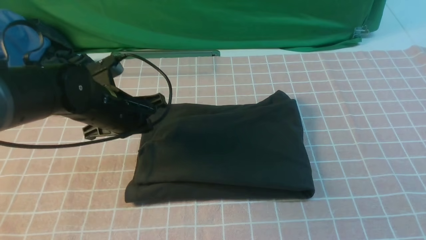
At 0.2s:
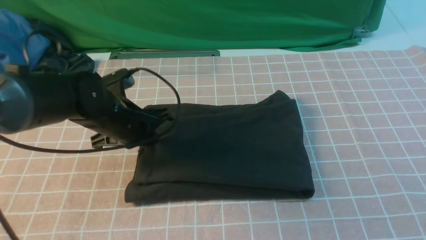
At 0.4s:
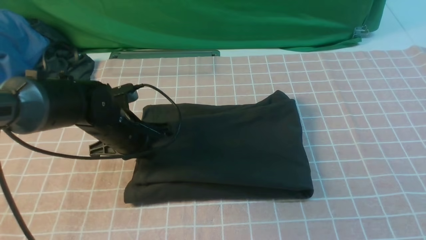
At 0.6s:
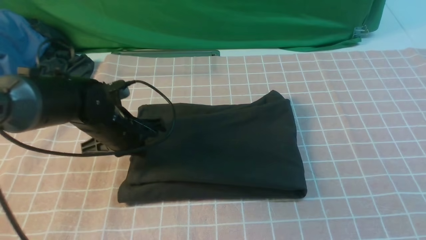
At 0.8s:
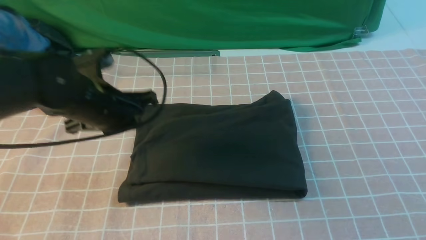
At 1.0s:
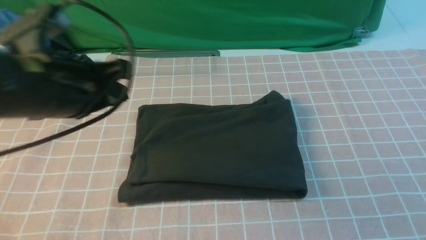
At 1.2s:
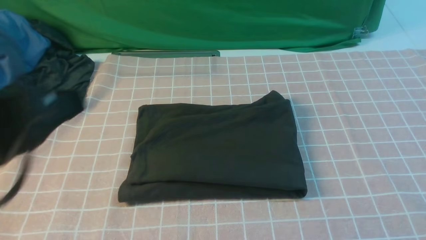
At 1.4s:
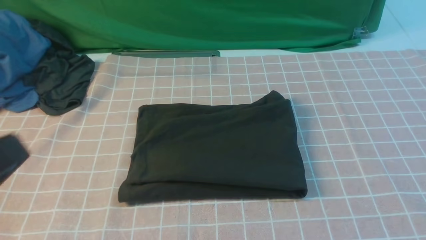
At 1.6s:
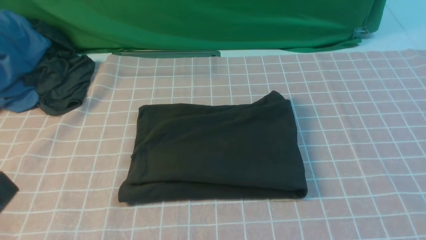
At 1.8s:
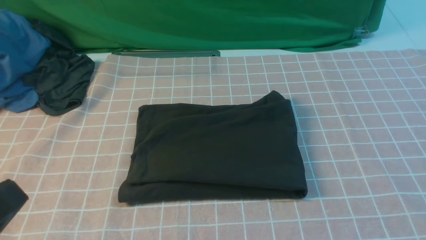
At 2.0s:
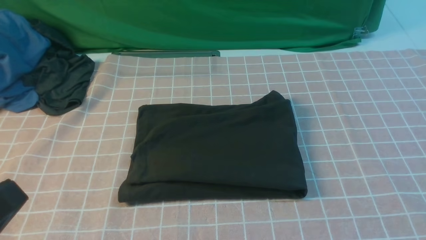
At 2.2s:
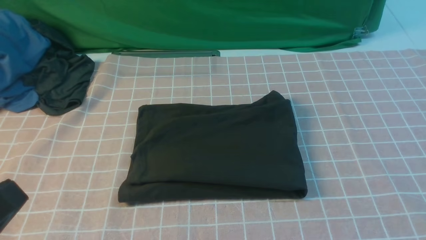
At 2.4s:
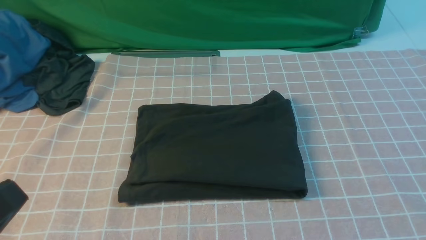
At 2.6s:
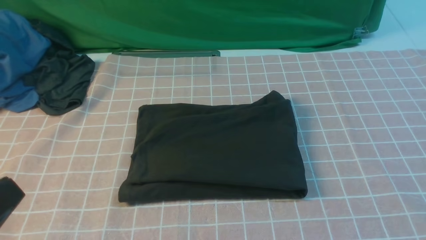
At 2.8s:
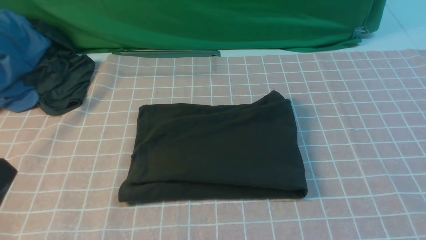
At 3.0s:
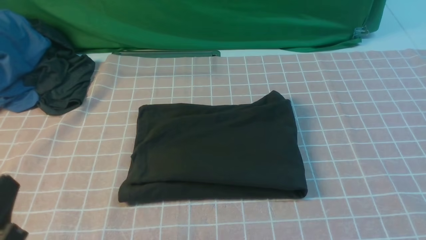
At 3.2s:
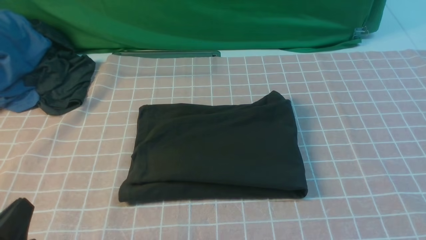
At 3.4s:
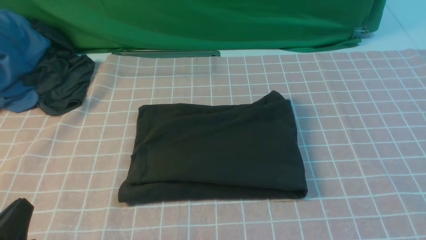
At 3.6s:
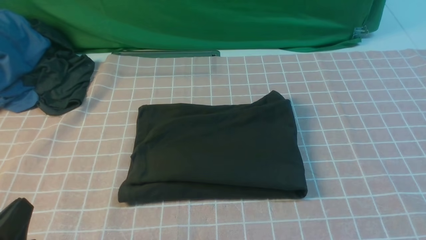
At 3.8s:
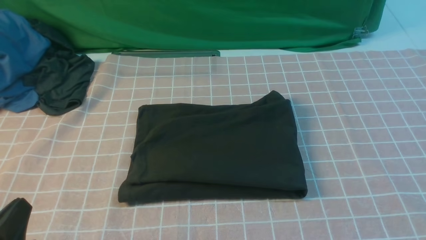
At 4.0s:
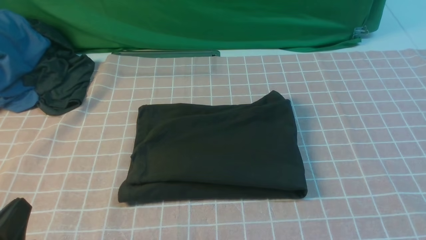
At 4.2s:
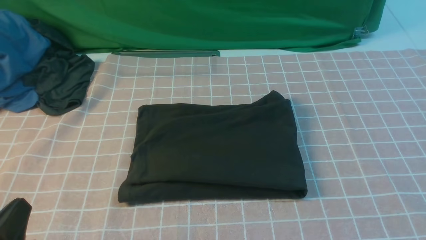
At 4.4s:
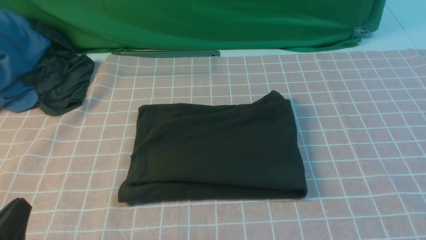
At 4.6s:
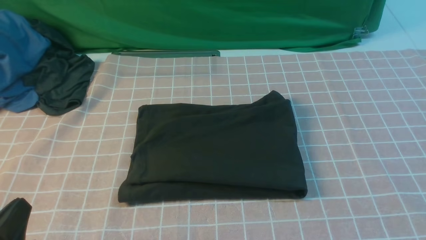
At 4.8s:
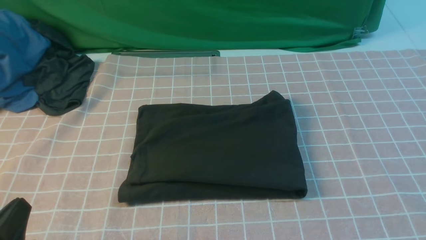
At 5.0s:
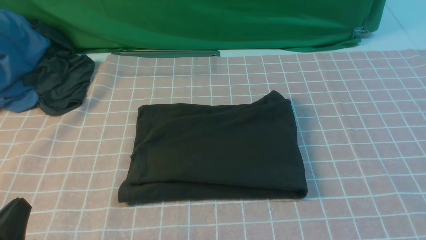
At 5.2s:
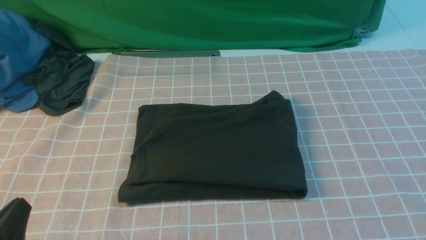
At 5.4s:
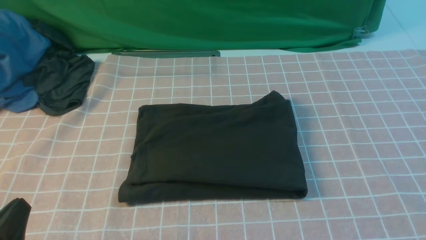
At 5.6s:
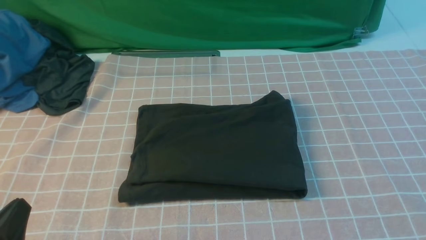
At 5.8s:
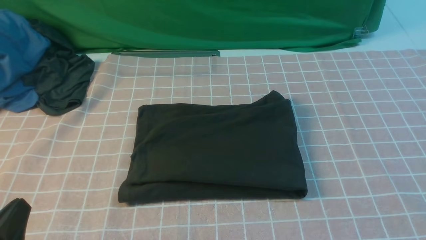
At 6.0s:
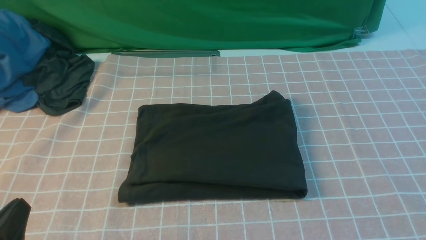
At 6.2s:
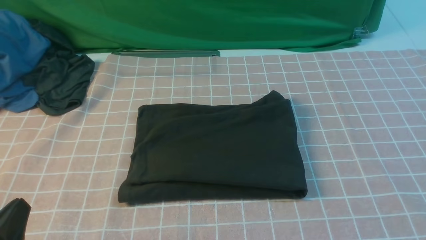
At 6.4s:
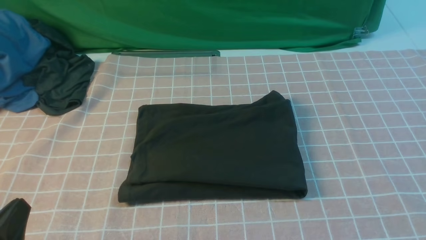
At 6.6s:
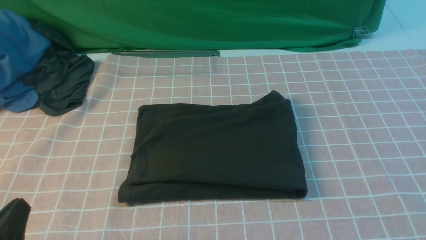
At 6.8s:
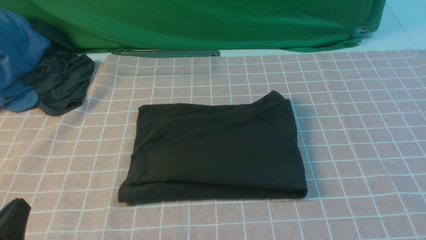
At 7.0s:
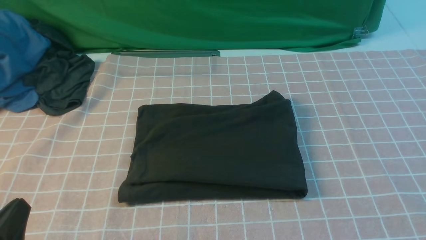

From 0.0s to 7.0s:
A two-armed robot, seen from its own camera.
From 0.0s to 1.4s: The right gripper travels backward by some 10 cm, while the left gripper moves backward and upward, about 30 cm.
From 1.4s to 2.8s: The left gripper goes approximately 5 cm downward.
From 2.8s to 4.2s: The left gripper goes approximately 10 cm downward.
From 5.6s to 7.0s: Both grippers stay put.
